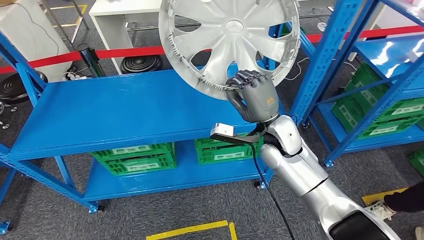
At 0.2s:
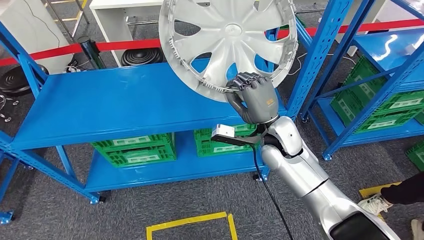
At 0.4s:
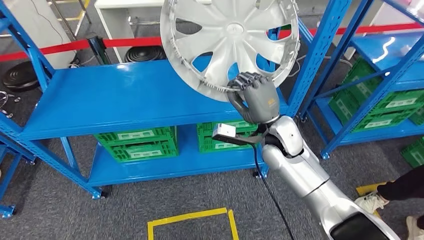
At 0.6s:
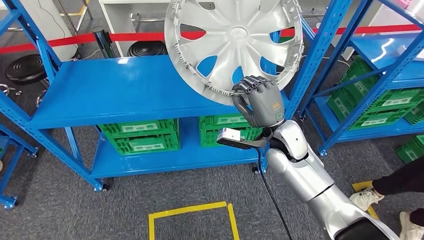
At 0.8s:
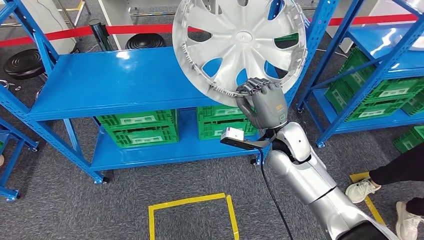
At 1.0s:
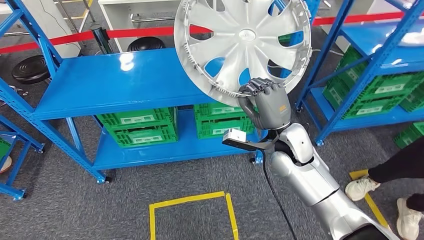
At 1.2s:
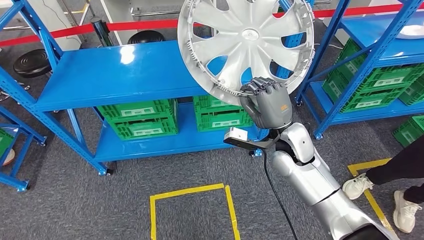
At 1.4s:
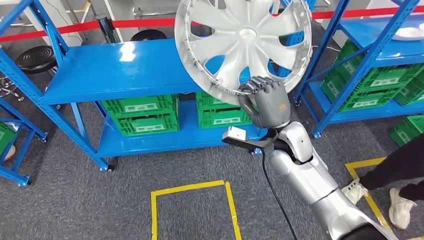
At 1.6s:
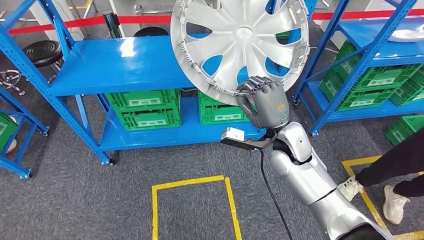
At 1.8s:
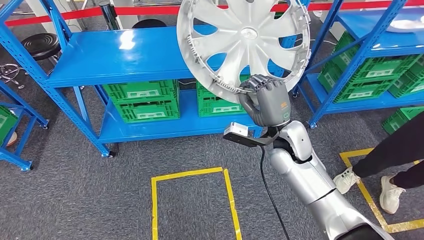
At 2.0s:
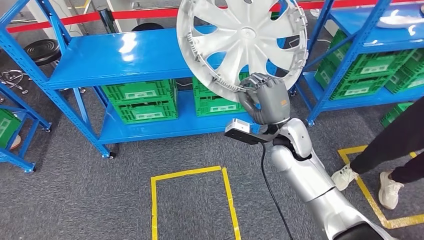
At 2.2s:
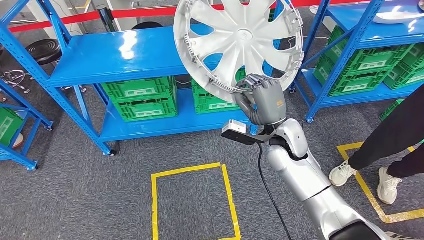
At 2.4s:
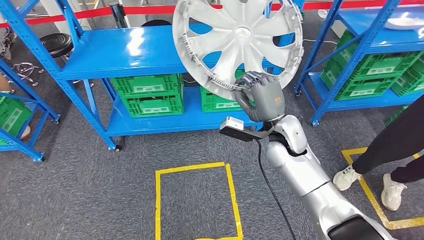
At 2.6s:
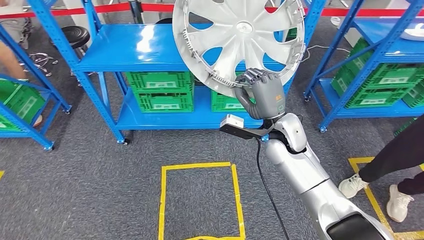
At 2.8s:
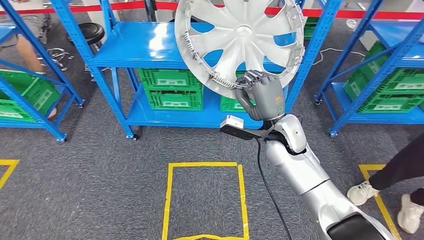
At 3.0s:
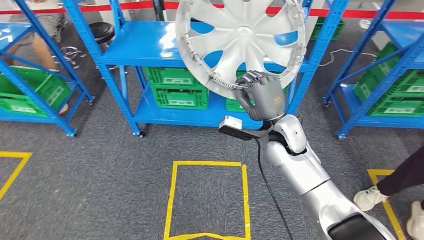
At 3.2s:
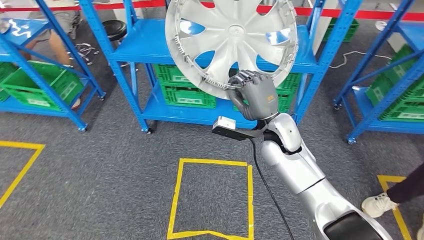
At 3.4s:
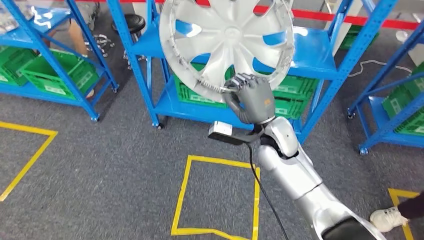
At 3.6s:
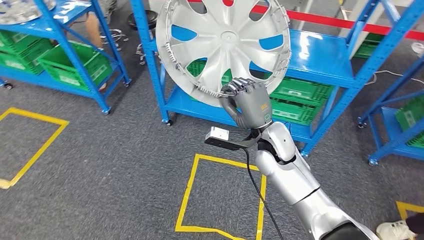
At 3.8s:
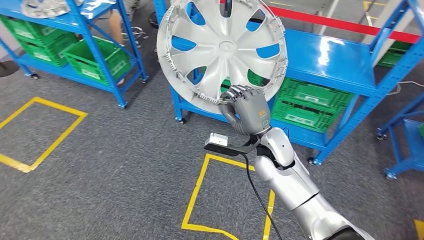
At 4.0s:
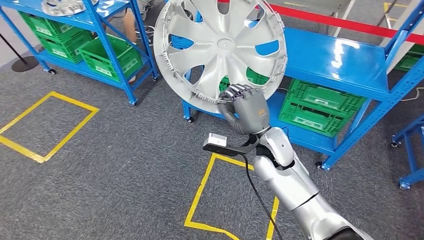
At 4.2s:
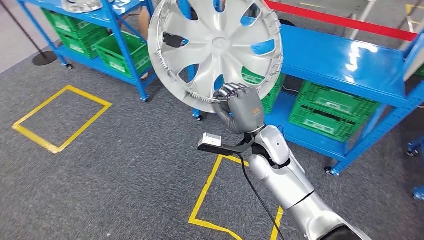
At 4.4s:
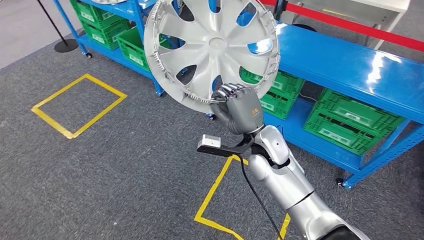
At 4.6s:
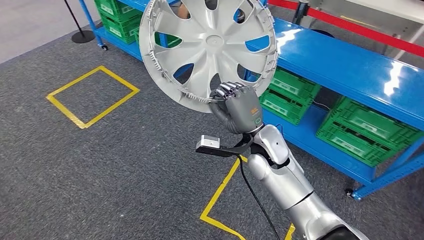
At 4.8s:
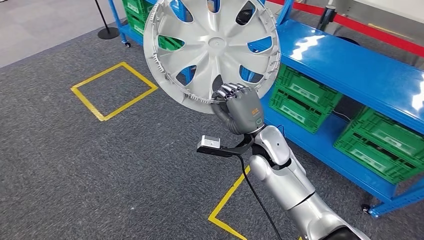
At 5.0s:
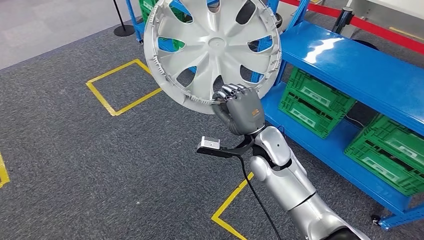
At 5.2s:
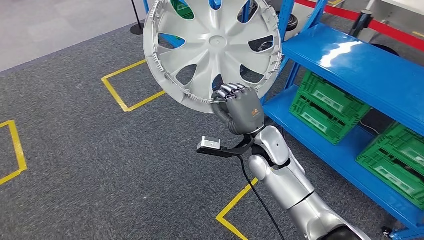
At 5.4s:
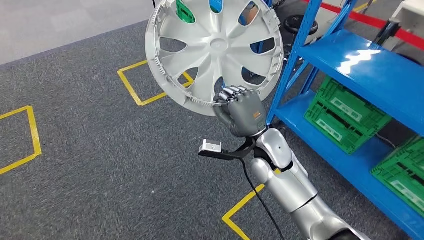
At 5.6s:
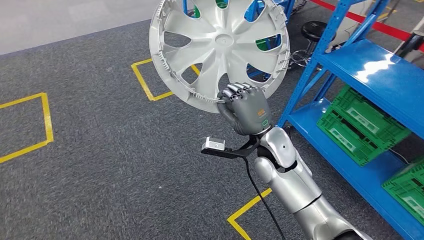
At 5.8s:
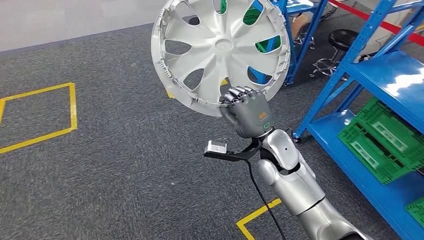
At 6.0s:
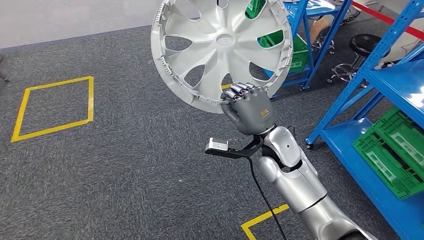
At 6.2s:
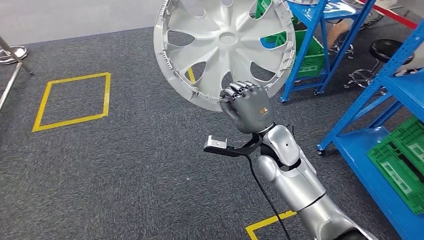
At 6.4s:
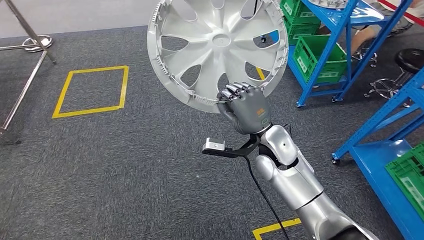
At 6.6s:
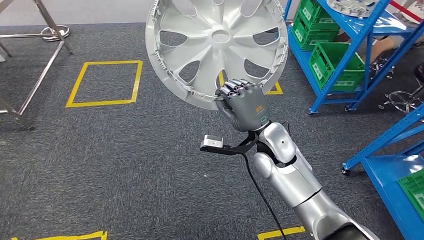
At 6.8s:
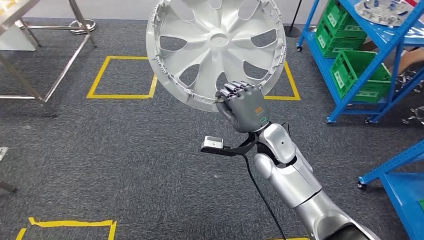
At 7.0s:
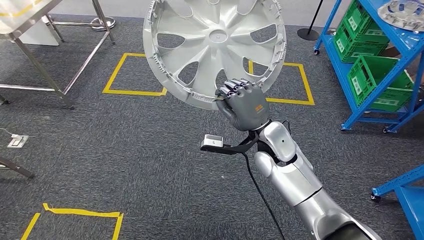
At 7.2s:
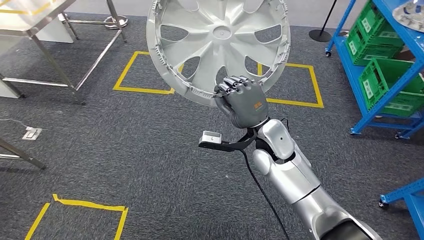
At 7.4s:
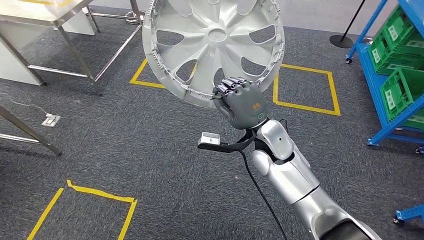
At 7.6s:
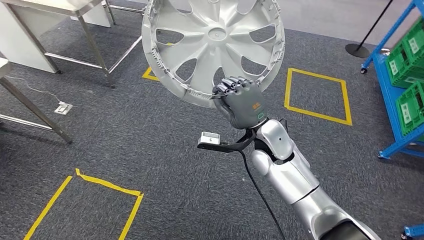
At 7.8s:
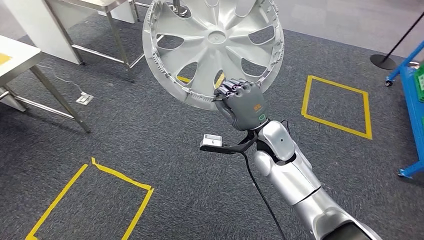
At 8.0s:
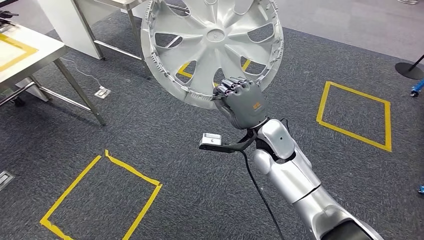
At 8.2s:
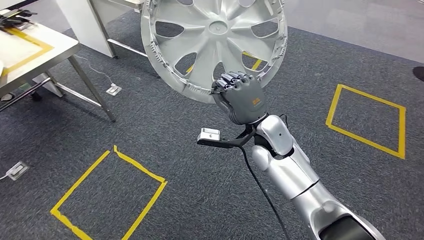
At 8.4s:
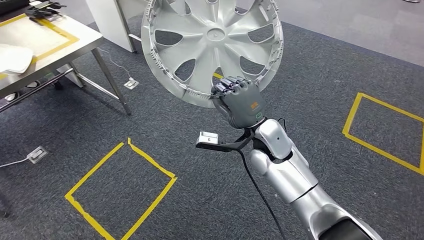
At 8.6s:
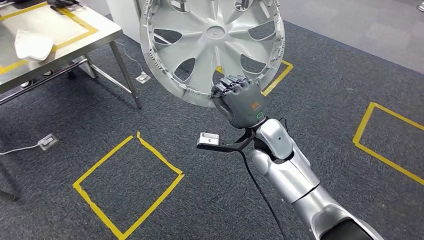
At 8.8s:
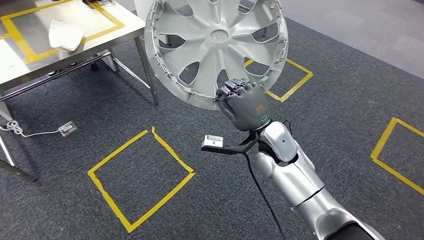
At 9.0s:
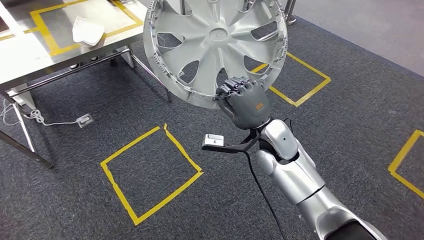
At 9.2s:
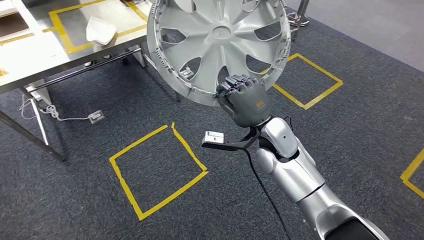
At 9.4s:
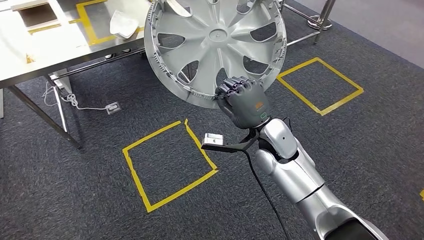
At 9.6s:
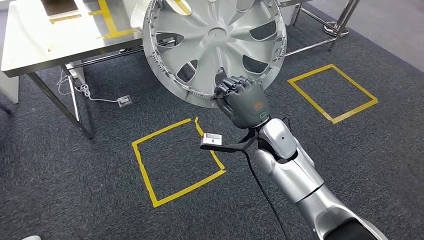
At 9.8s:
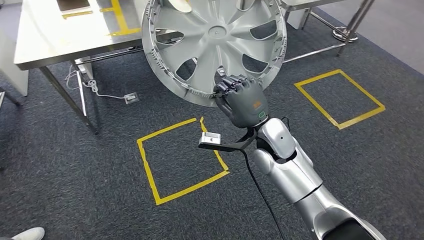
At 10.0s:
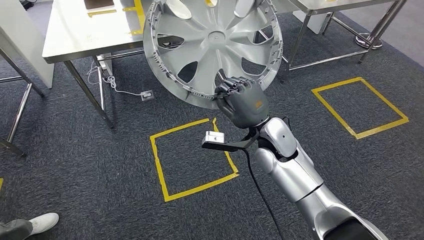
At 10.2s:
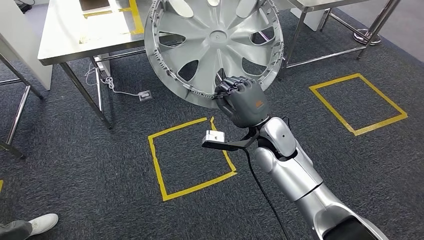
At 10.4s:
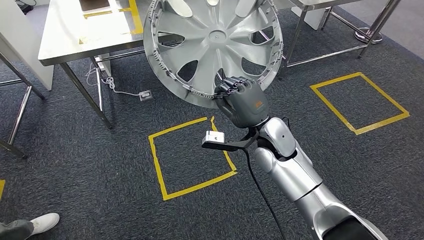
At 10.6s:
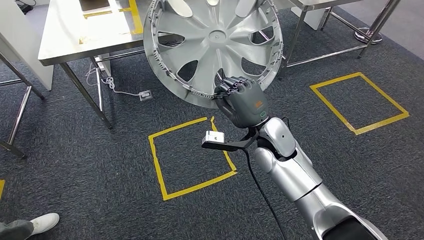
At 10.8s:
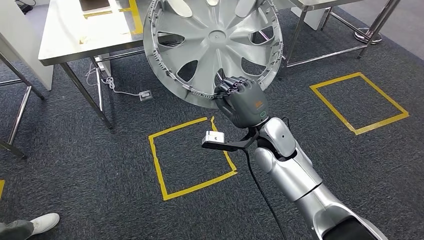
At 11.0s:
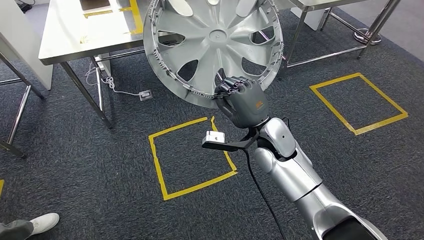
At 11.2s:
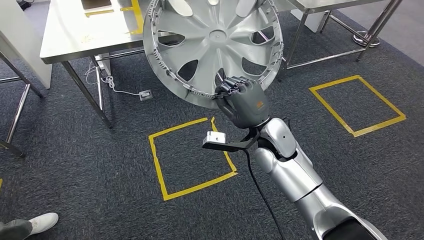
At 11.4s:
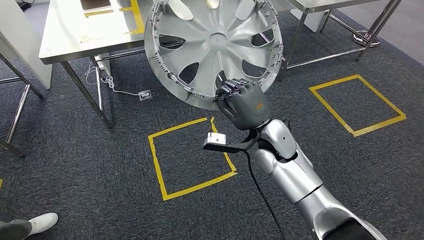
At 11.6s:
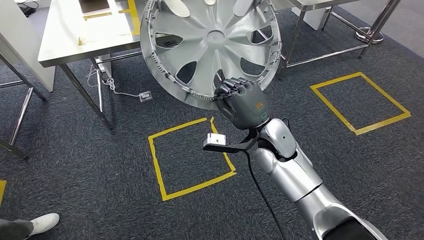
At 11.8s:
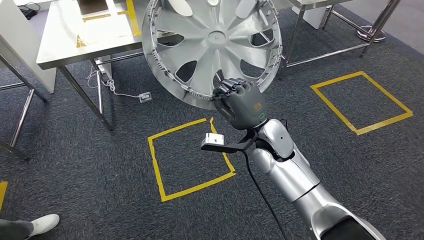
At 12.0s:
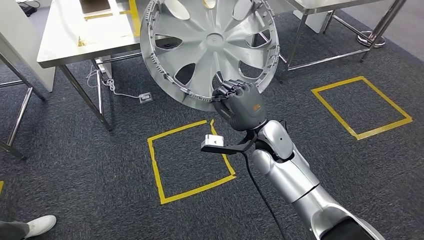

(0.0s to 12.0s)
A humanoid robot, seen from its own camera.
10.4s - 12.0s: Both hands stay about where they are.

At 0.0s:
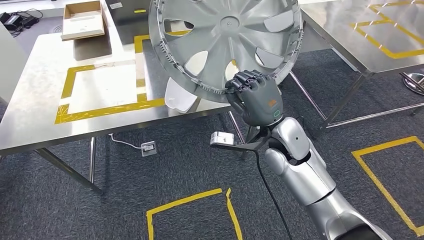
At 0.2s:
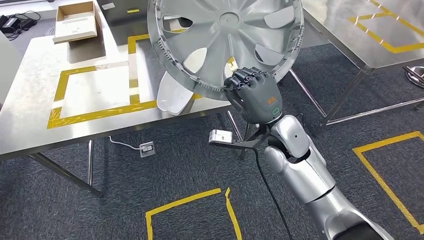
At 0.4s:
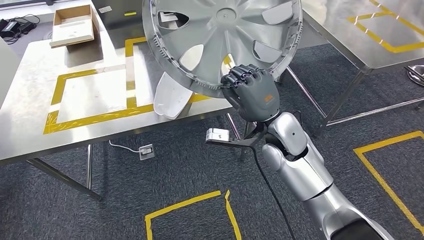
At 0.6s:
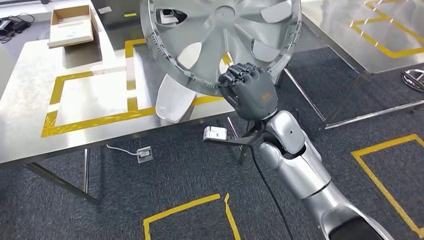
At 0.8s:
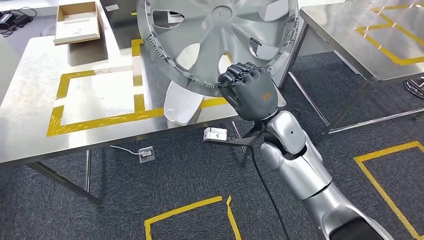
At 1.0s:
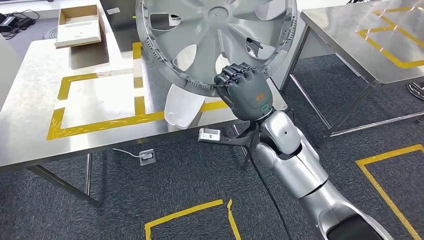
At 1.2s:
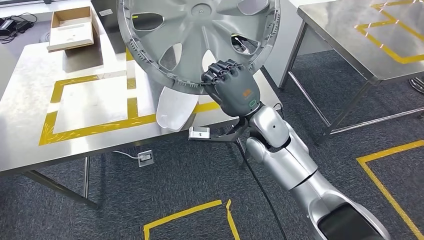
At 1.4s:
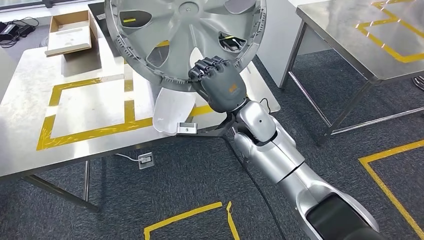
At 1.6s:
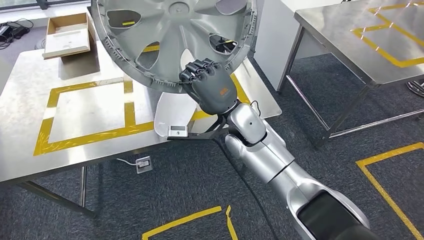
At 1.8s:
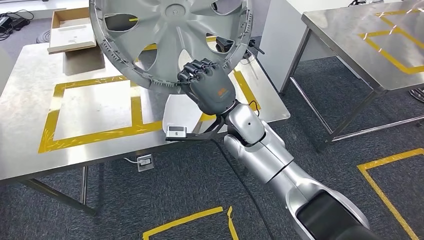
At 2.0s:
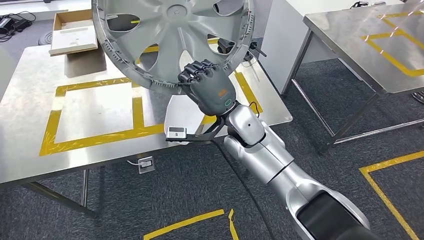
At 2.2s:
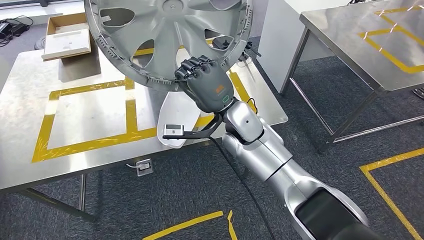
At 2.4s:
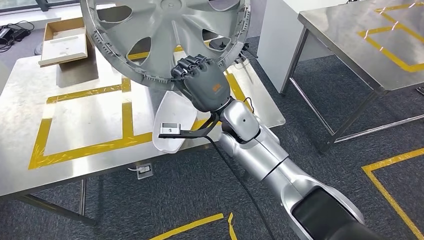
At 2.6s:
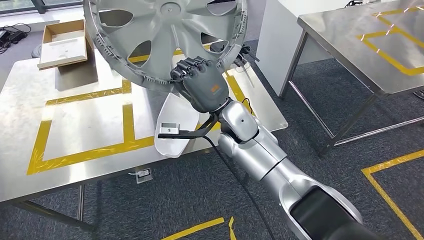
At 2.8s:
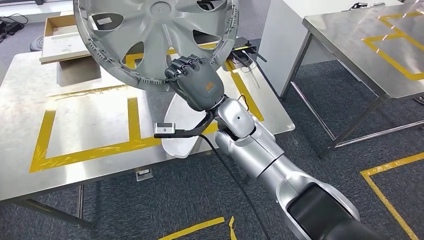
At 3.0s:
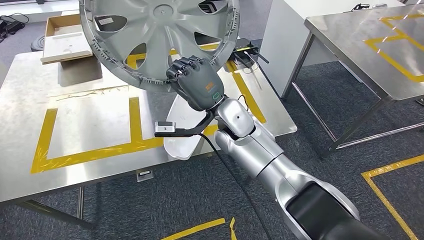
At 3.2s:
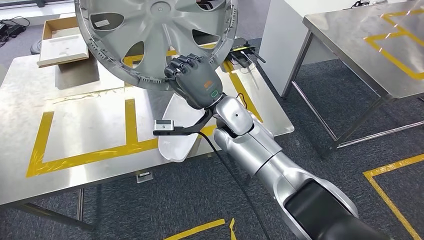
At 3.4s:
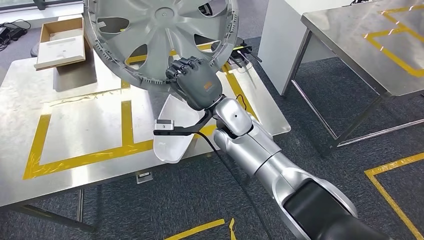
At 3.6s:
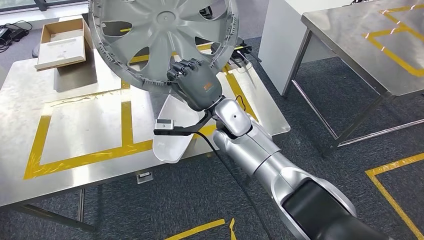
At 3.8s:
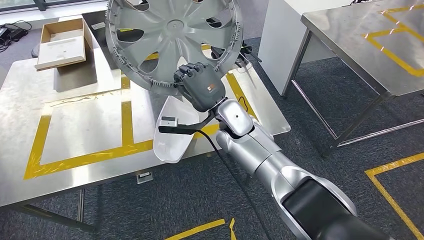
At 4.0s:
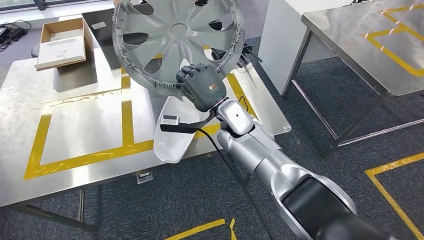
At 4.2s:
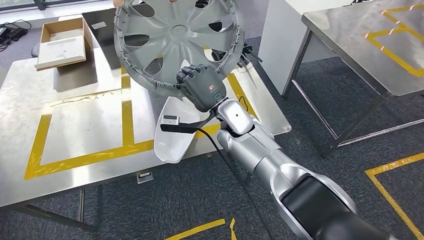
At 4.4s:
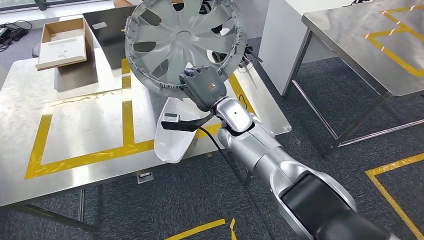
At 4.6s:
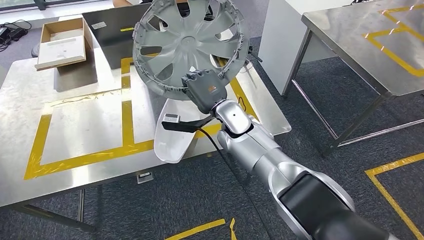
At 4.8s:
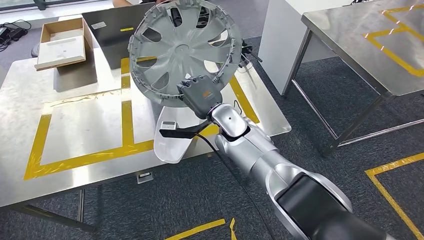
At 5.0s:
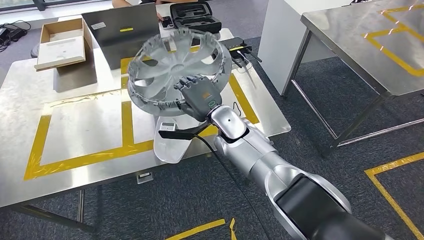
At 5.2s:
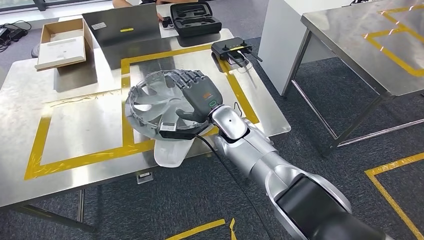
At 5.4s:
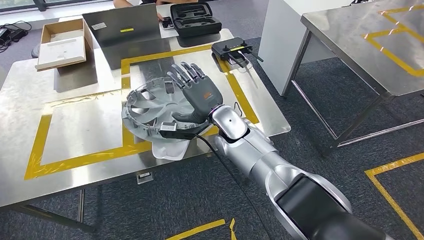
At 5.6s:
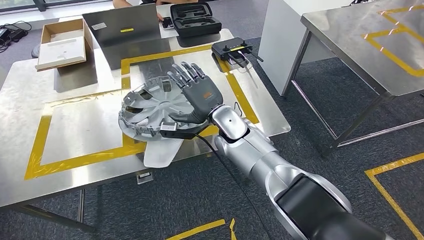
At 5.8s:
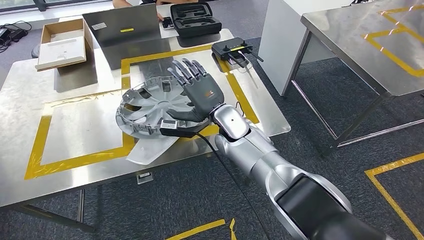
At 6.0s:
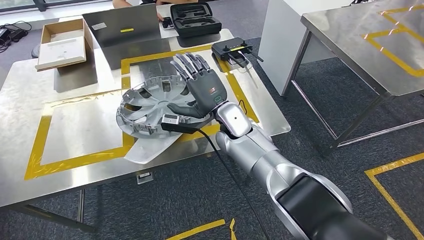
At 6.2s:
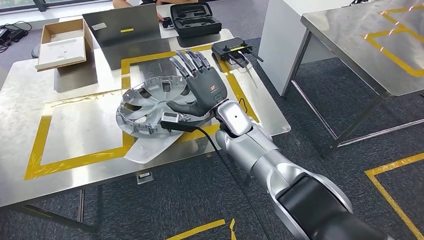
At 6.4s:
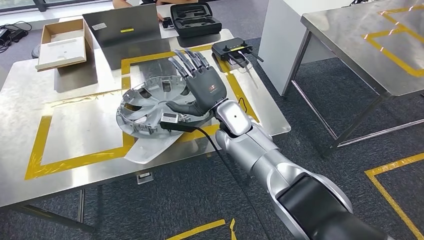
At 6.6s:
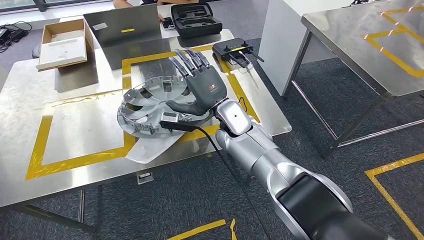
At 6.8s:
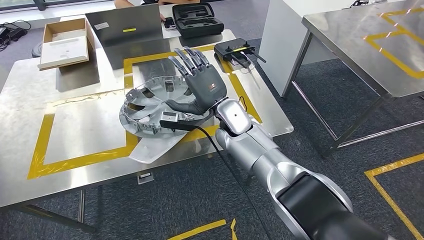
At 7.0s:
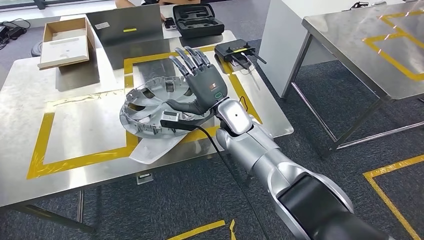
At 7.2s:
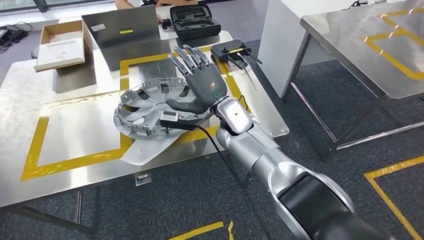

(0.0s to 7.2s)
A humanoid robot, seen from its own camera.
Step, 0.0s - 4.2s: Move the small component to the workbench.
4.4s - 7.2s: The hands make only small movements.
